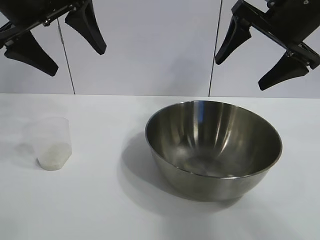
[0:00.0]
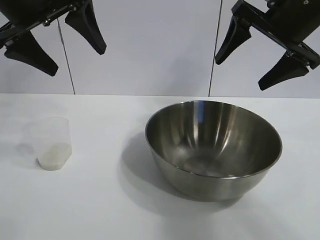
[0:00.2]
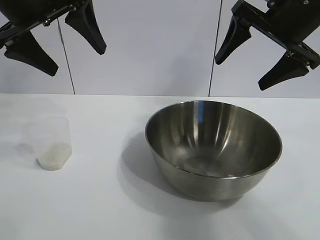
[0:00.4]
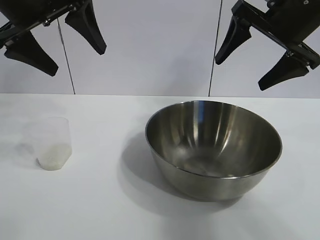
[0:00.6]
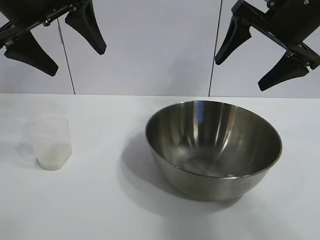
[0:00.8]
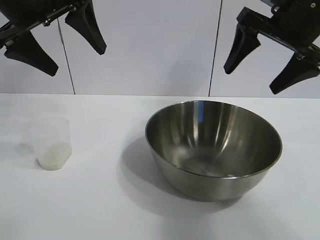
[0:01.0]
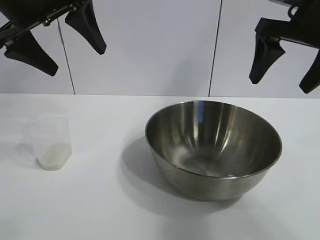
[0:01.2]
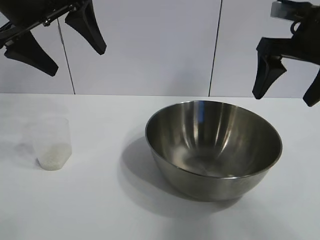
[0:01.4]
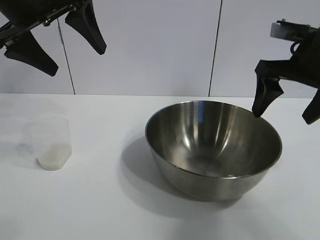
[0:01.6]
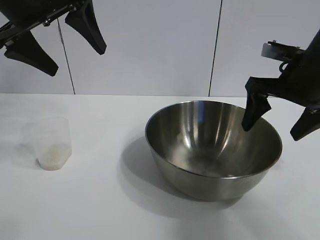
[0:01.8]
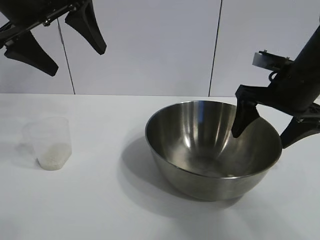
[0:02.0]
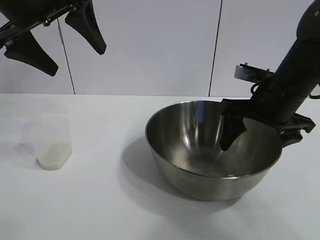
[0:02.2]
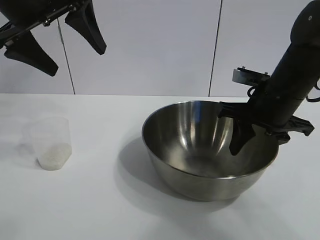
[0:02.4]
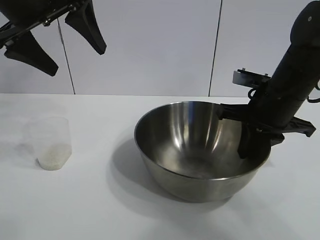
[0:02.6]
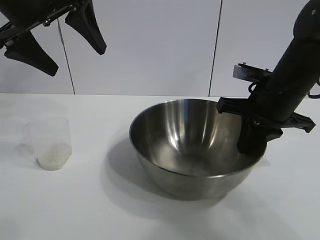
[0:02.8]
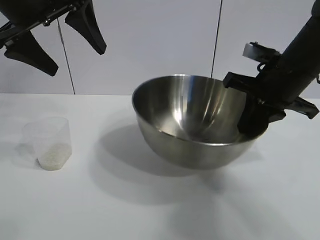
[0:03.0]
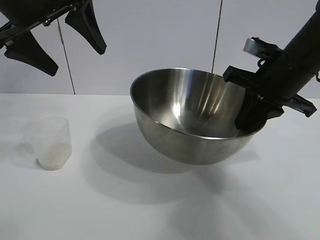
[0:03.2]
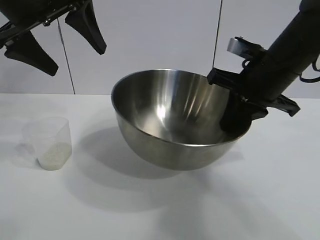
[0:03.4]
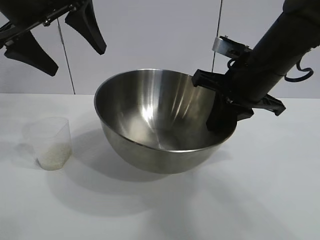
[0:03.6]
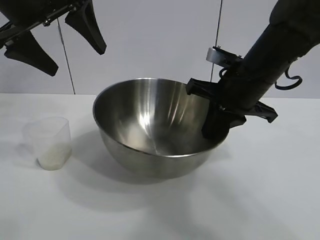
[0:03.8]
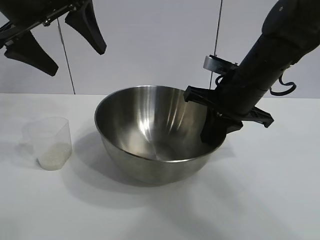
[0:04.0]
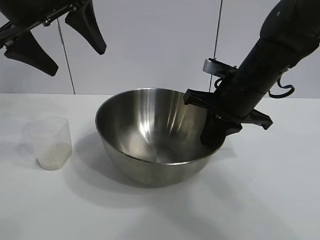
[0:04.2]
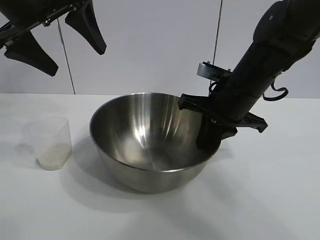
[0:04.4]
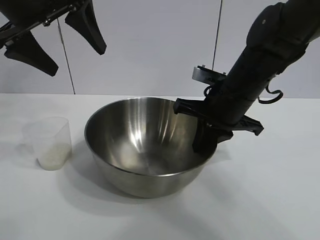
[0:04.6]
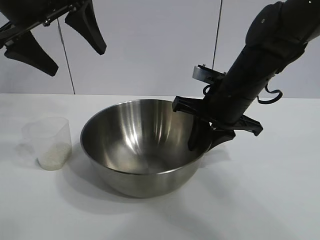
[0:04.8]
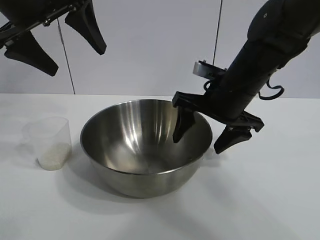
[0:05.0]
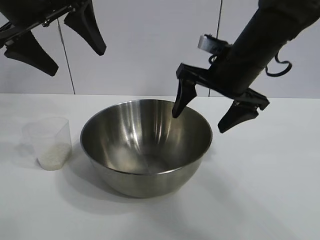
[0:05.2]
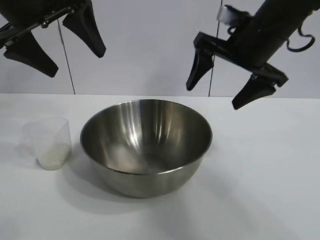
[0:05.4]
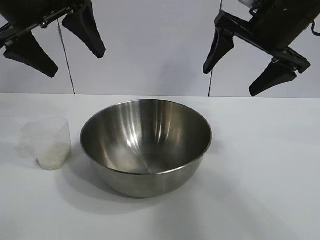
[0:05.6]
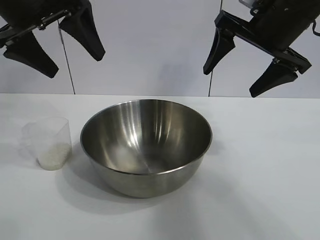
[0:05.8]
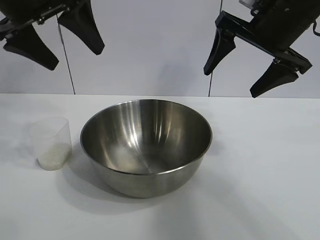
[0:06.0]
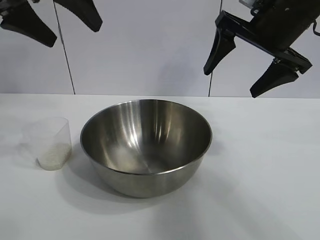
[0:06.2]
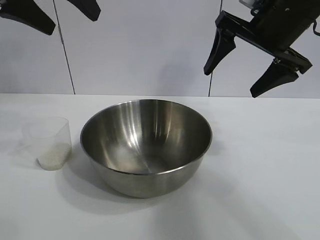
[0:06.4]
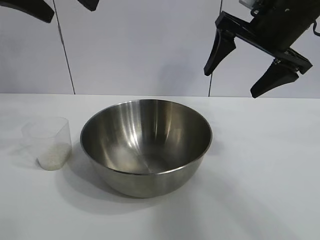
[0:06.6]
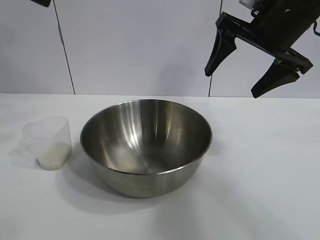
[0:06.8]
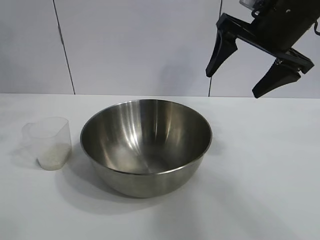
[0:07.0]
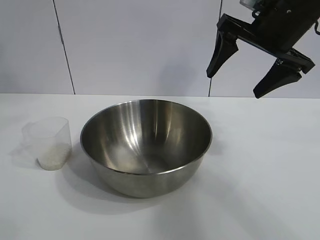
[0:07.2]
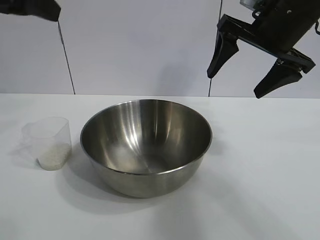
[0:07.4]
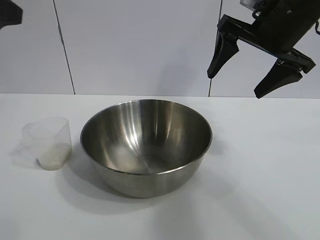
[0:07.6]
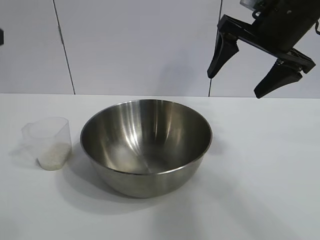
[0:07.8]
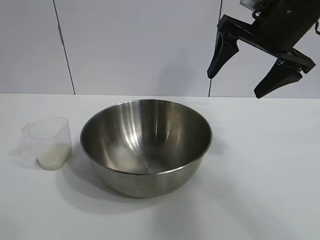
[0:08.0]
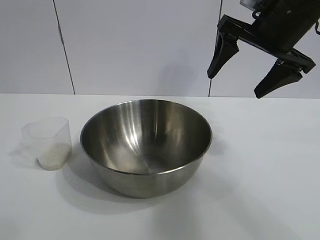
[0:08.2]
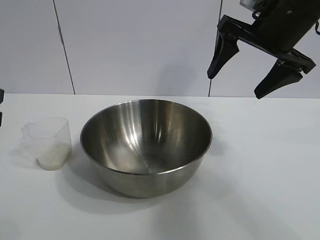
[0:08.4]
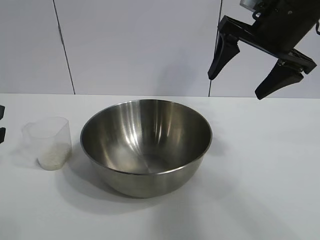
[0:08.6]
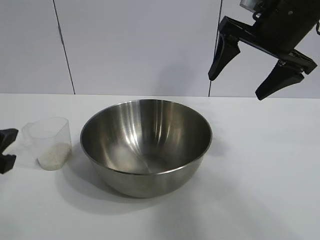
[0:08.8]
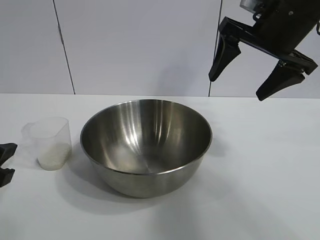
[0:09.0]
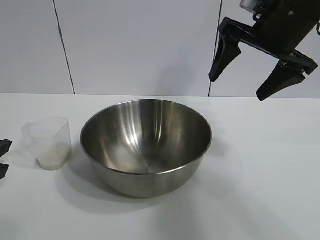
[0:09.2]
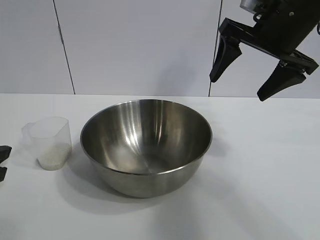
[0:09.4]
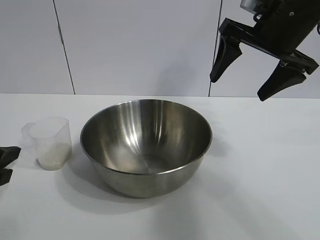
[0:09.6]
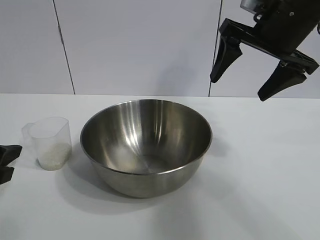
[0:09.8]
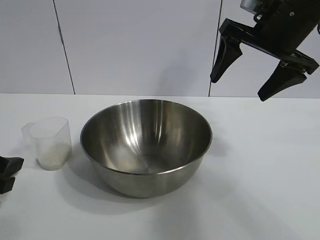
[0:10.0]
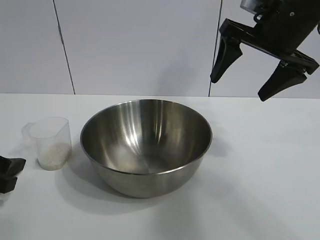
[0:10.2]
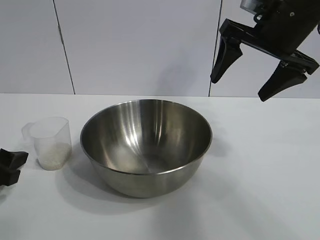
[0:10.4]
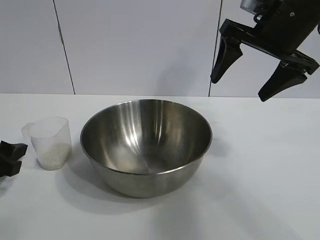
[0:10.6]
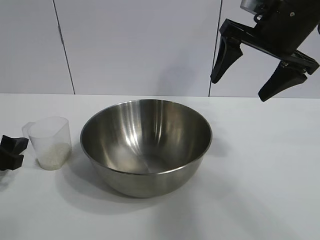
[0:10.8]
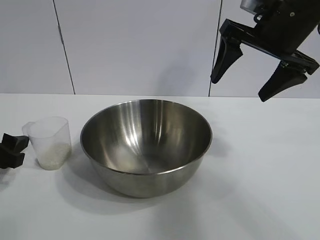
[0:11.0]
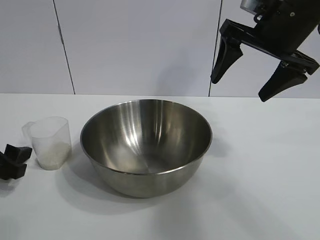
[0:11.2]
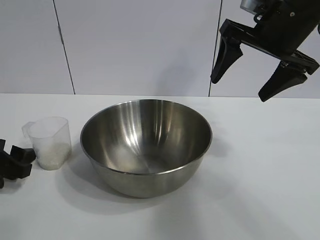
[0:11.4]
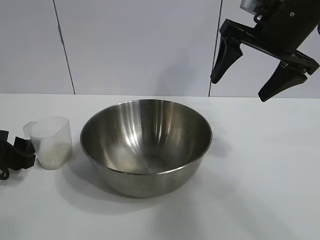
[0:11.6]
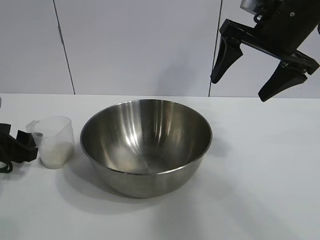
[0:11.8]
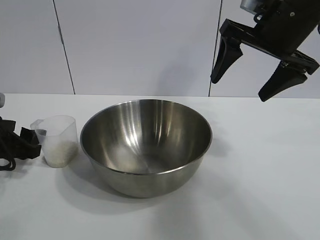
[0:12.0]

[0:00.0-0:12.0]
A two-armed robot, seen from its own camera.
Task of the whole recording: the right gripper grasp the rice container and place it in the center of the table, the left gripper grasp the rice scoop and pour the rice into the rice container.
Step, 0:00.8 to 0:04.8: Move the bowl in the center of view with right gripper.

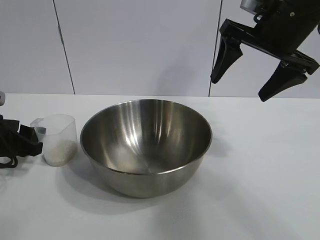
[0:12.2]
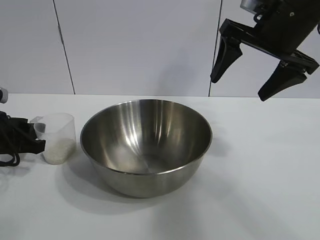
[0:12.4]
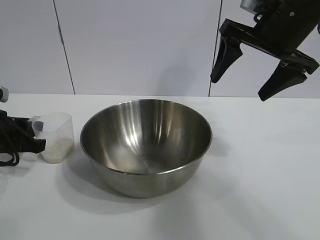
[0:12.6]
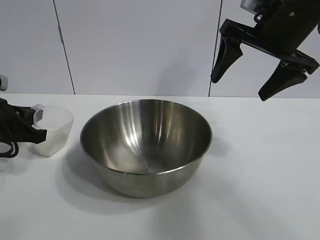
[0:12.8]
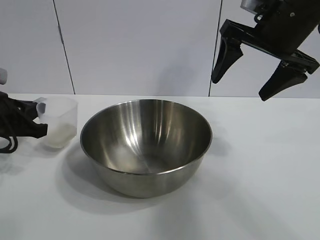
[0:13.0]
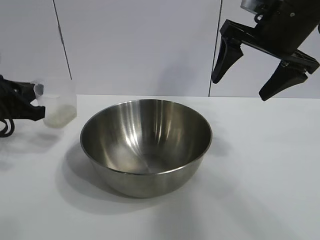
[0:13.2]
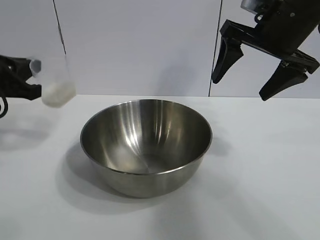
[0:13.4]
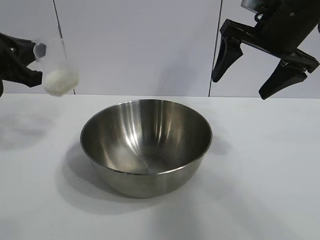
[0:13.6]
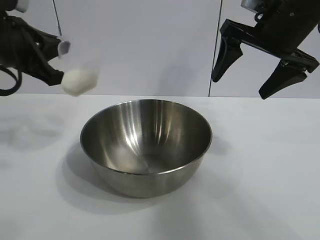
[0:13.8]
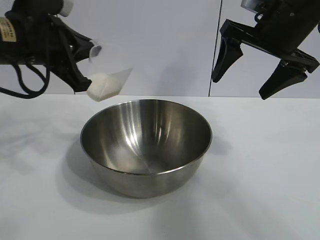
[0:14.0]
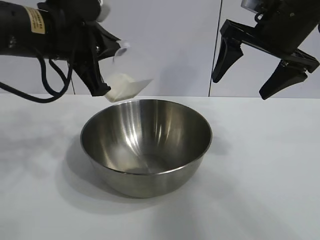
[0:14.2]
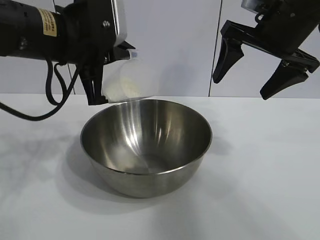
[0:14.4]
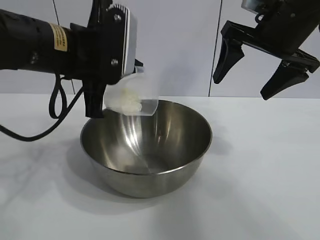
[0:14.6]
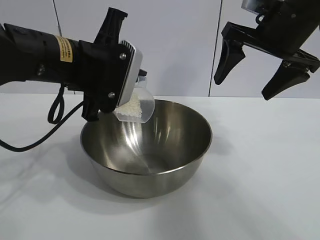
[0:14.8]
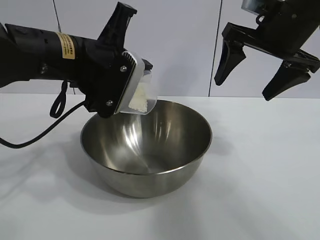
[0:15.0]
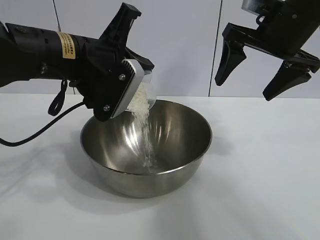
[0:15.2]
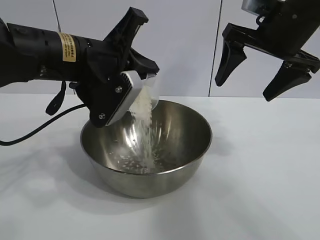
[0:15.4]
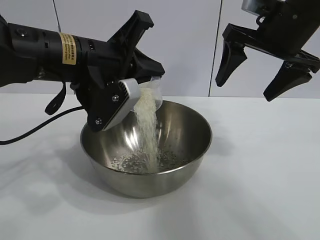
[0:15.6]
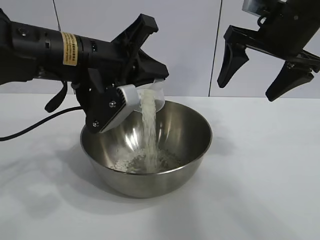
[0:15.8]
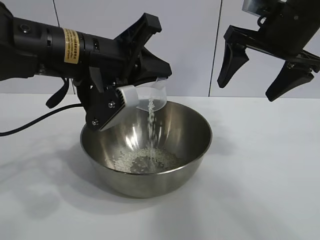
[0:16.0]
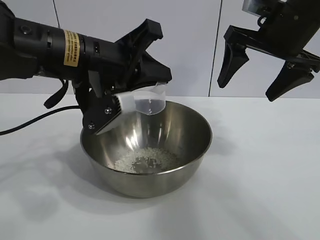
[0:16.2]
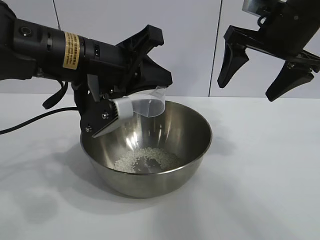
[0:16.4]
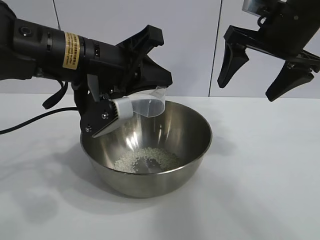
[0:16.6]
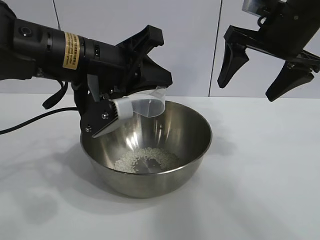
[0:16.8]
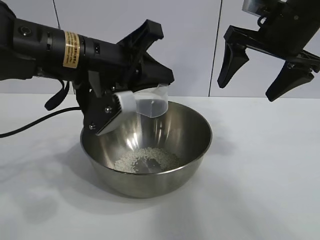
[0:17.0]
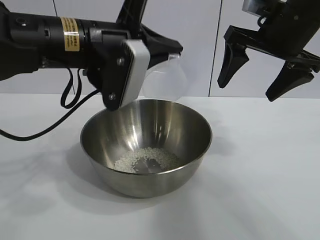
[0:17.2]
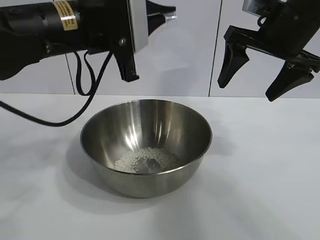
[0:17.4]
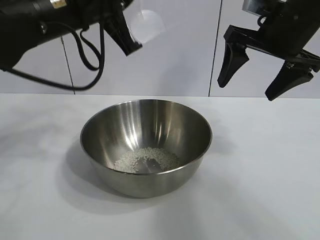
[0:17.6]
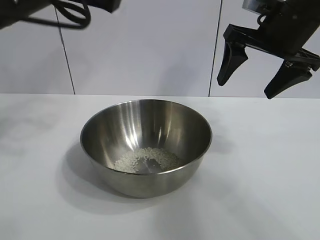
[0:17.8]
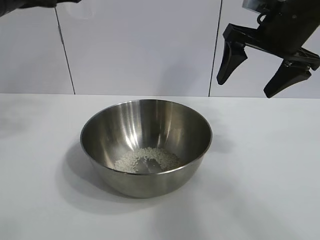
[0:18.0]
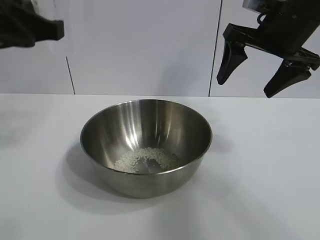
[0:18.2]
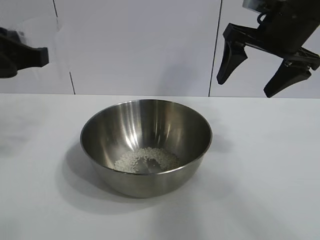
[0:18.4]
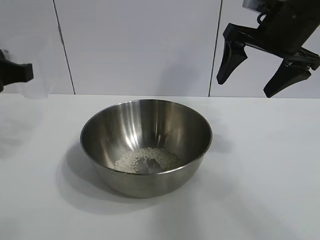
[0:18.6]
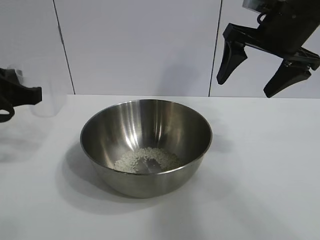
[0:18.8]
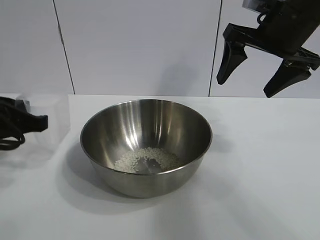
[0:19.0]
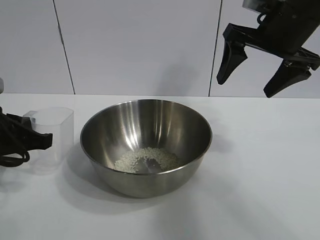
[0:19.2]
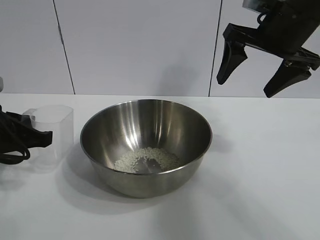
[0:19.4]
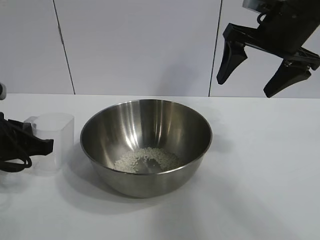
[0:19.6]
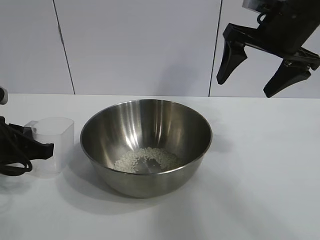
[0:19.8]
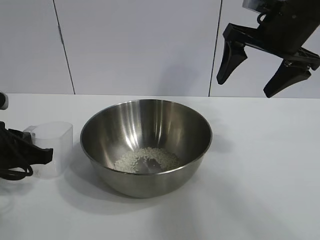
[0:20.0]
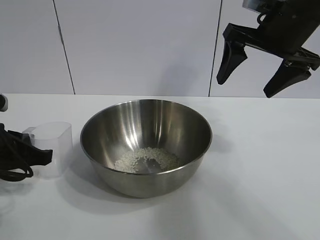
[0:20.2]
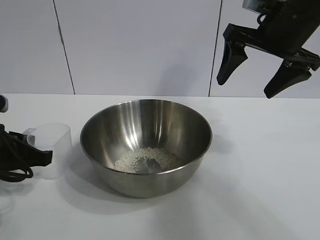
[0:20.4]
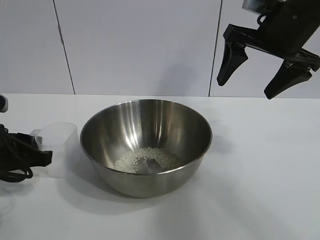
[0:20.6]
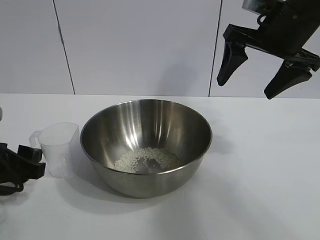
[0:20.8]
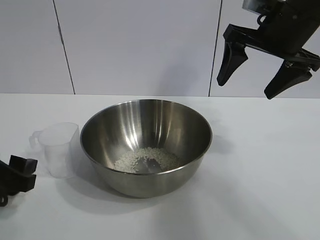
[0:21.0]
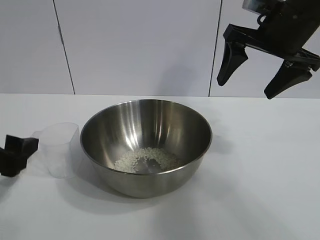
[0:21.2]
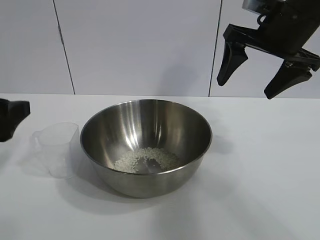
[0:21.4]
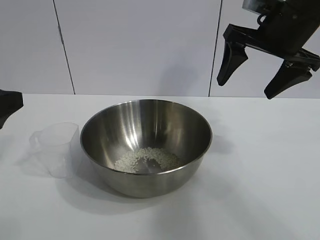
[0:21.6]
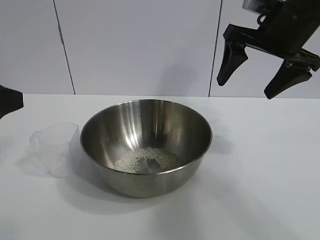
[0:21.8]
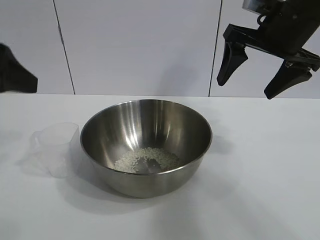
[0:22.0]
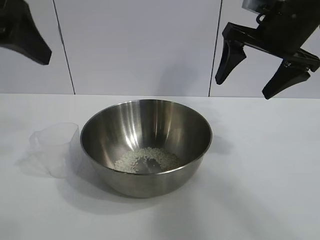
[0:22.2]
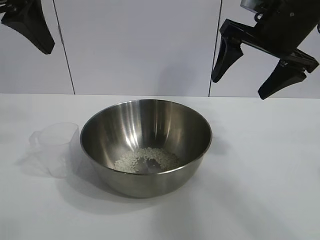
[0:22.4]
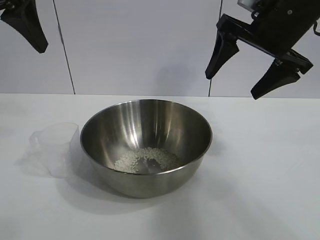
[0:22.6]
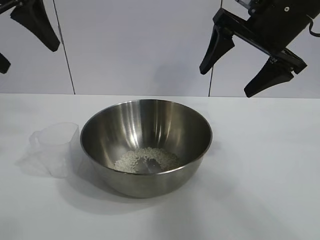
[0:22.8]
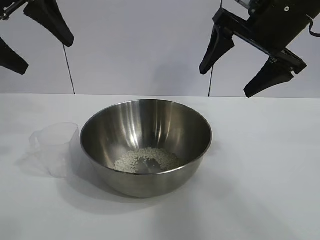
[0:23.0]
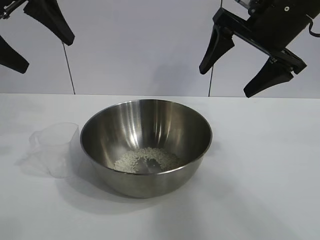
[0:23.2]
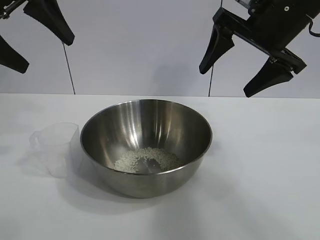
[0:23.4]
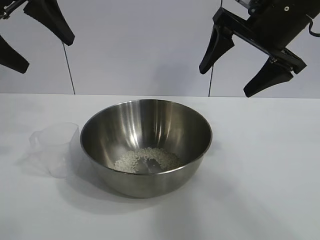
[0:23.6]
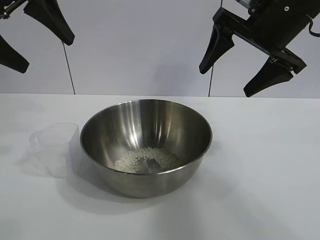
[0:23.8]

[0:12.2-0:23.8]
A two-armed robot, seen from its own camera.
Task of the whole recording: the right gripper grasp the rice container and place it in the center of the table, the left gripper grasp the rice scoop and pour the rice into the rice container.
Step, 0:13.0 to 0:16.2: Pour the rice from the cup into the bowl with the left gripper.
Step, 0:16.6 to 0:20.8: Place the cup on the table with the left gripper.
